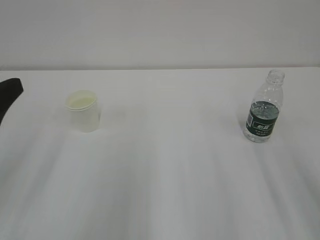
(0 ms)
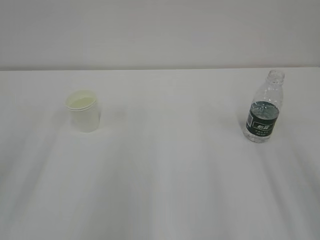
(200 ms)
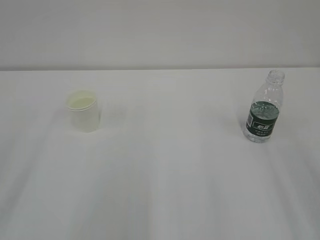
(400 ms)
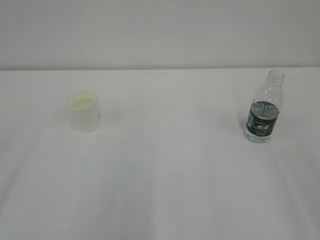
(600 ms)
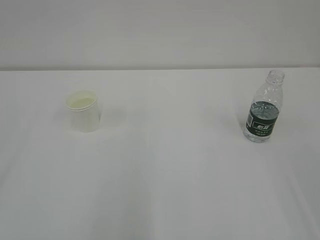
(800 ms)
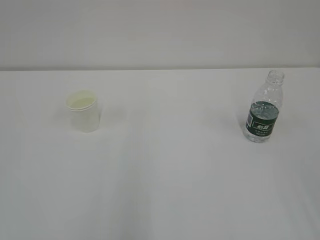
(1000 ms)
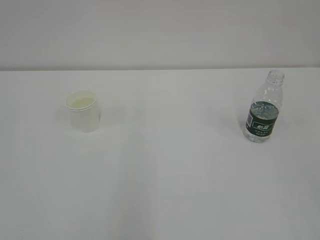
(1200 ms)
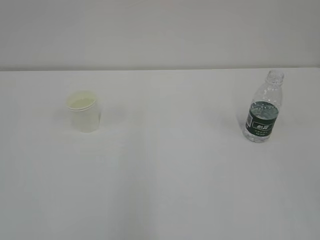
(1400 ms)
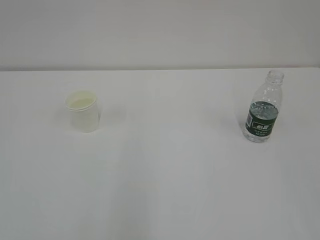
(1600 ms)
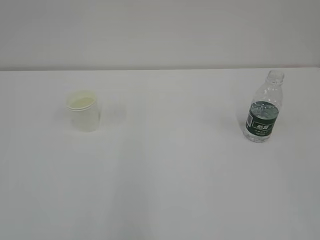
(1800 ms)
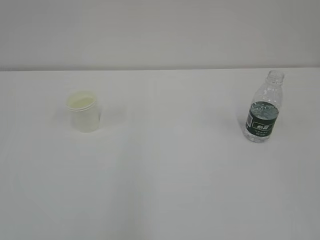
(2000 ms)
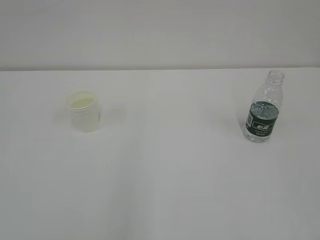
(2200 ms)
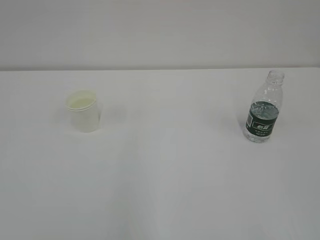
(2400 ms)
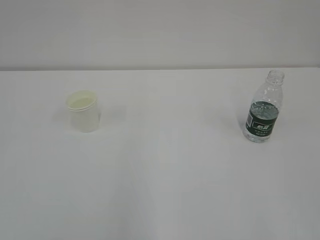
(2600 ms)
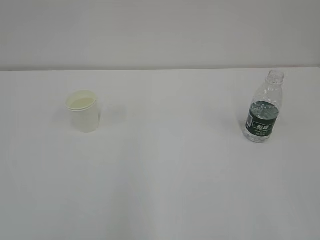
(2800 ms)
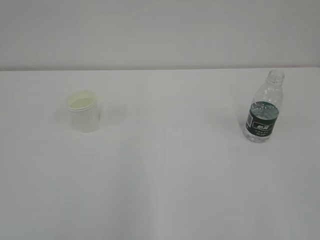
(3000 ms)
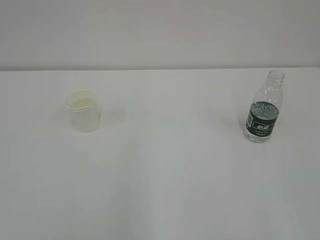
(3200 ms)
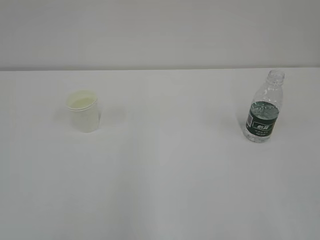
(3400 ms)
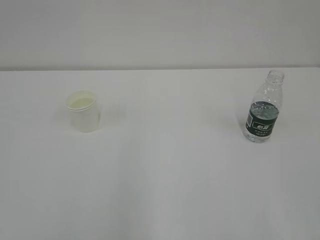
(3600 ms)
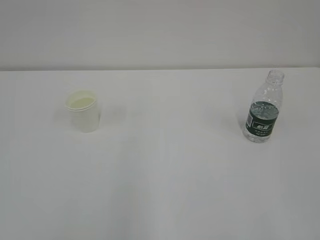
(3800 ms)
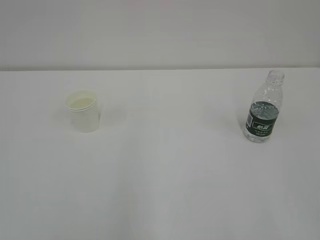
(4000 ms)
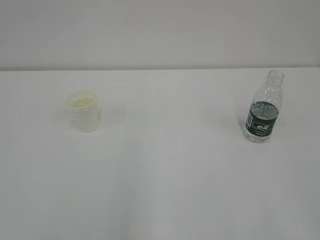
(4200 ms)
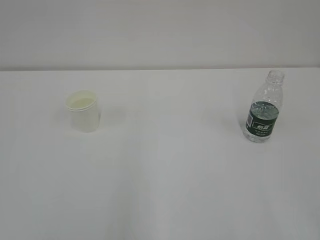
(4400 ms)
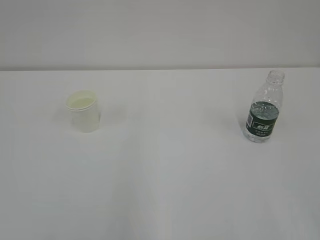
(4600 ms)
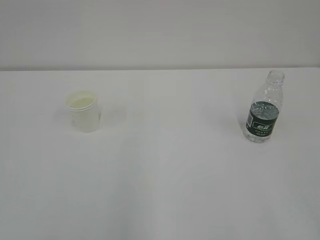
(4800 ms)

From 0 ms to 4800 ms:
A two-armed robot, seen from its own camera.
From 0 ms to 1600 ms: The left gripper heads backward and upward, covering roughly 25 cm.
